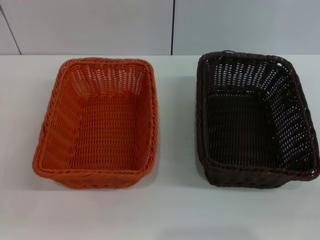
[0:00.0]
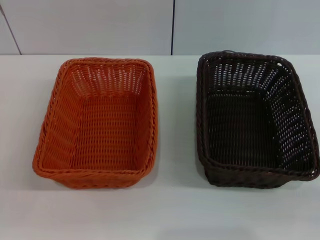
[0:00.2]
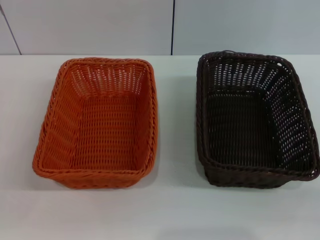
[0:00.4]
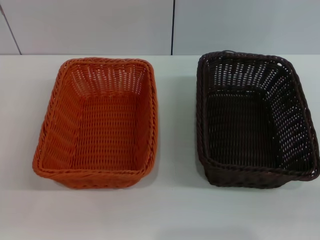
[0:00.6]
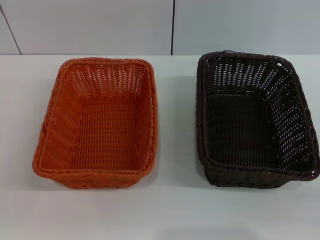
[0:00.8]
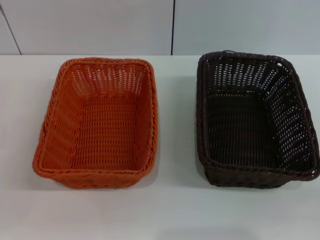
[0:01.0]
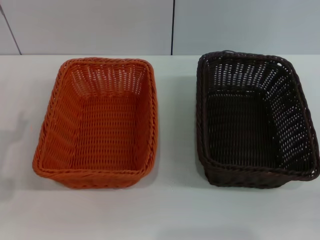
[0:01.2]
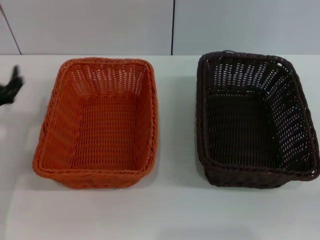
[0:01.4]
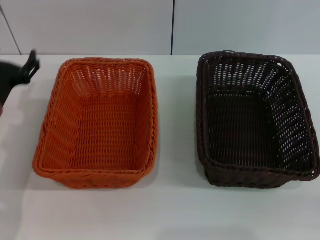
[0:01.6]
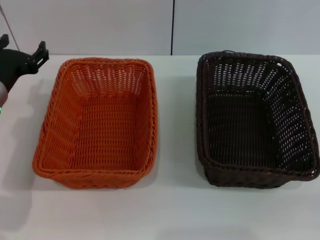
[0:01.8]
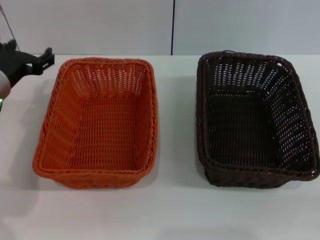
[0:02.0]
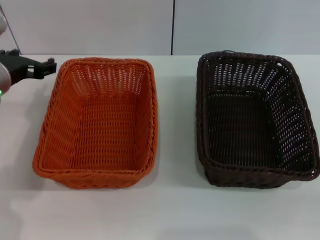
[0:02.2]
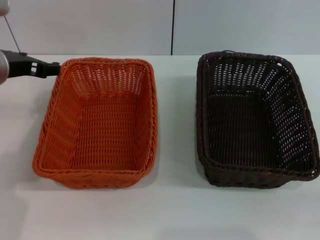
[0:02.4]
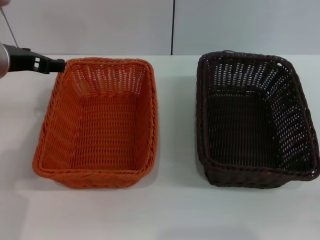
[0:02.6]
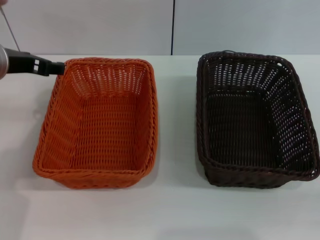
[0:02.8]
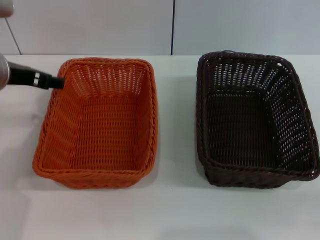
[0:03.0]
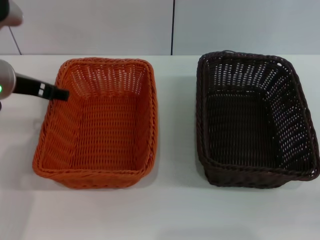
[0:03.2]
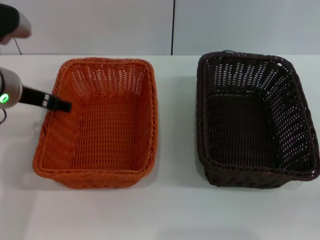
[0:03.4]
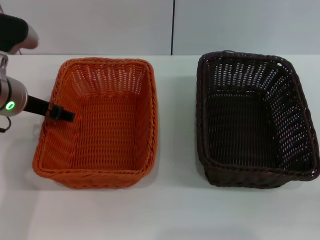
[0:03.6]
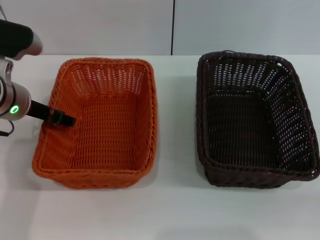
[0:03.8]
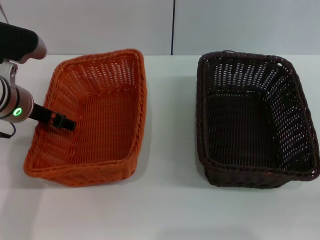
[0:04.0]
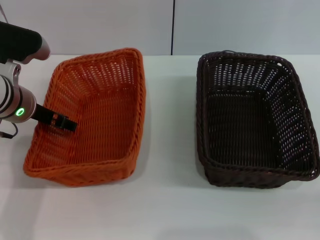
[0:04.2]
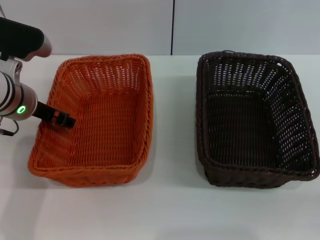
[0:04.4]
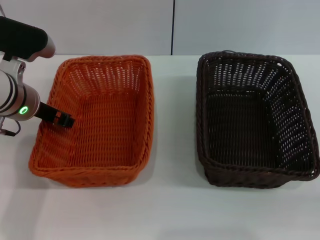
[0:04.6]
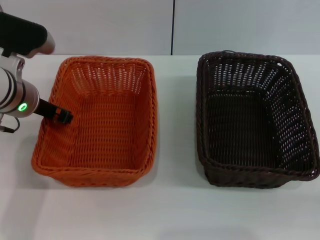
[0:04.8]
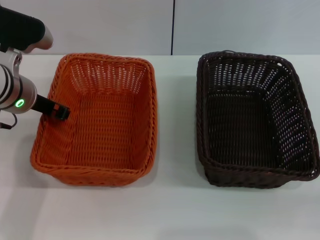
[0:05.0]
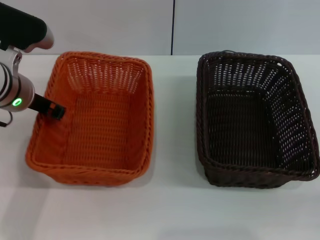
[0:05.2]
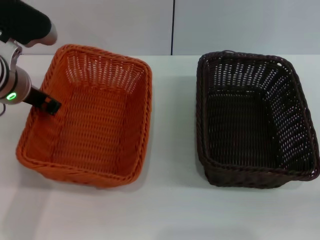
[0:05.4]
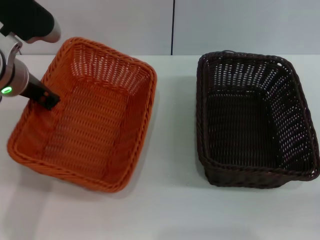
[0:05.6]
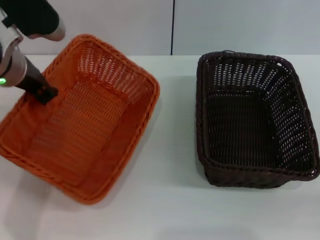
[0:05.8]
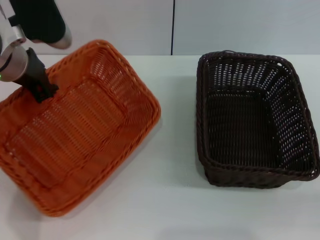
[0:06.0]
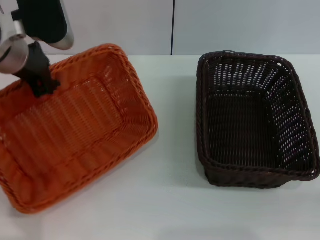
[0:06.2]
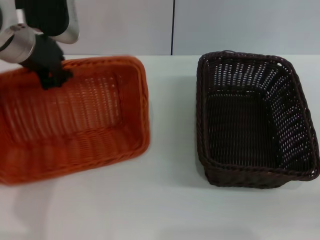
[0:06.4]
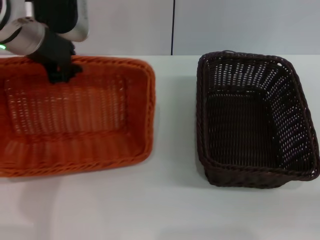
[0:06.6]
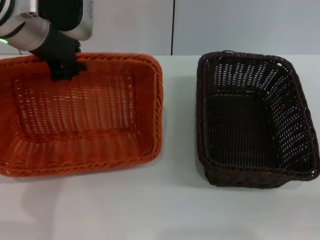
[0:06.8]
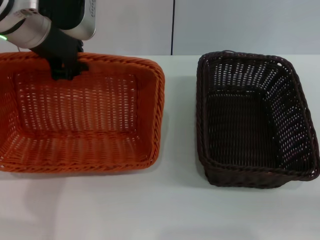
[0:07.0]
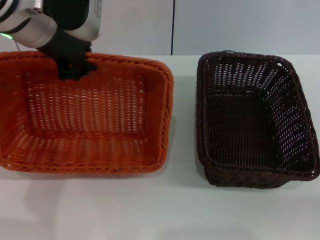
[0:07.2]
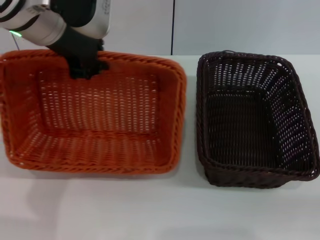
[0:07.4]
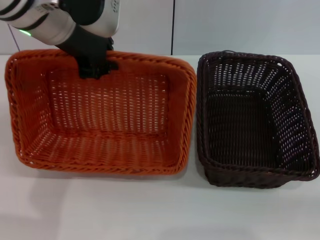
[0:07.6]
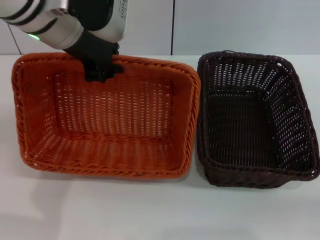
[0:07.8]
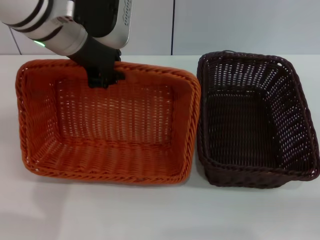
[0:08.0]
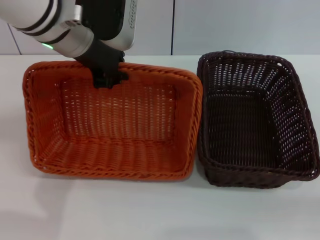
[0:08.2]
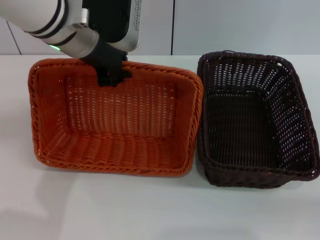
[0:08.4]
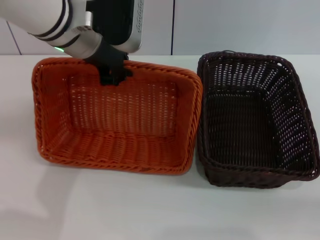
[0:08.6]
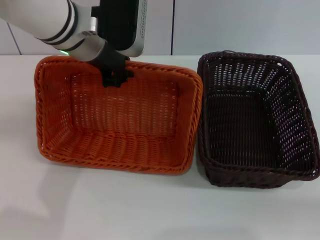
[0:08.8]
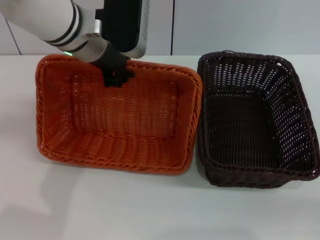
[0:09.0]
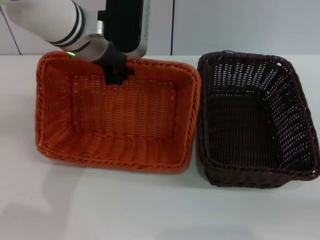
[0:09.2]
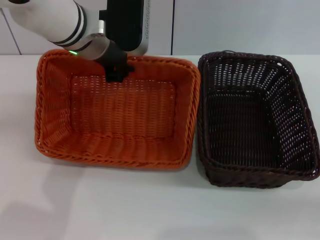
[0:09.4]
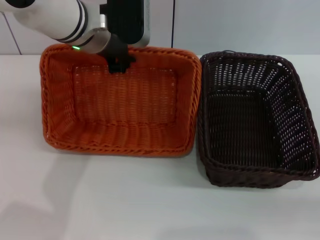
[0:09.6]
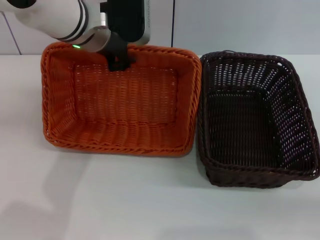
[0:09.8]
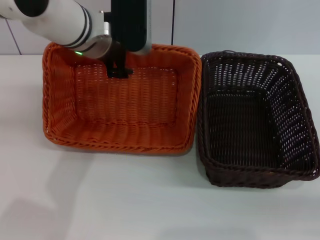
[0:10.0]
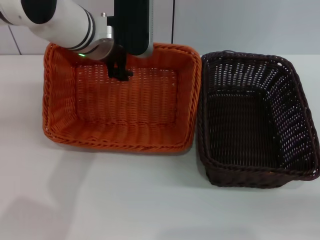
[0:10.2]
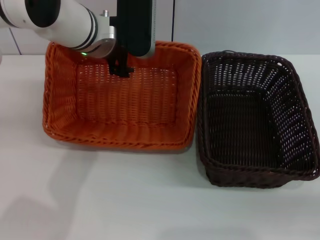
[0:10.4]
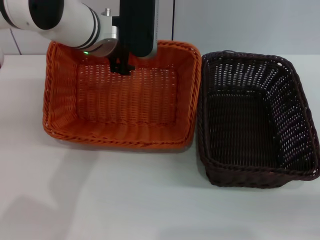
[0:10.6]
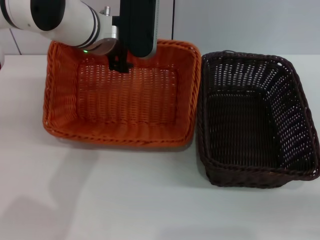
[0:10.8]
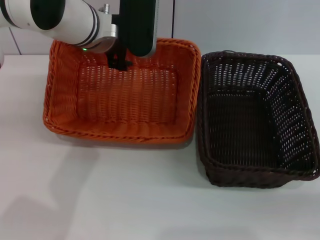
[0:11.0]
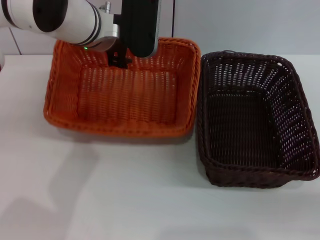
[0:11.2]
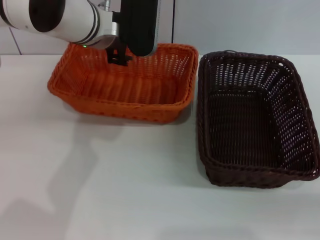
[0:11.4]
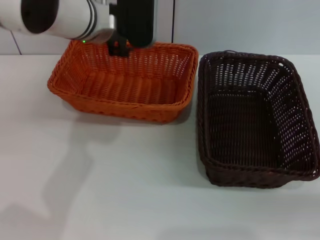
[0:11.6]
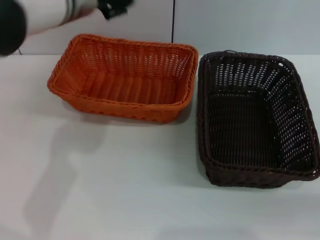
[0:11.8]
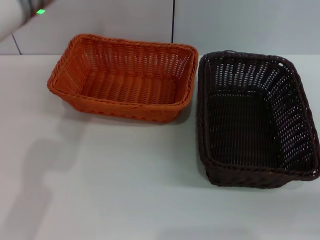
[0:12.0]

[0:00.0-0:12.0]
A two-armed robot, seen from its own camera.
Step, 0:00.0 to 0:05.6: Pick up the light basket with the left gripper.
Step, 0:05.8 to 0:11.2: Place the light basket in the center of view with the left gripper.
0:00.0 to 0:01.6: The left gripper goes approximately 15 cm forward, to the right and upward.
0:01.6 to 0:03.0: The left gripper moves upward, about 10 cm.
0:03.0 to 0:04.4: The left gripper moves downward, roughly 5 cm.
0:04.4 to 0:06.0: The left gripper travels upward by roughly 10 cm, and closes its fingers.
0:06.0 to 0:07.6: The left gripper is displaced upward and to the right by some 10 cm.
0:07.6 to 0:09.0: The left gripper shifts roughly 5 cm downward.
0:09.0 to 0:10.4: The left gripper opens up.
0:10.4 to 0:12.0: The left gripper shifts roughly 5 cm to the left.

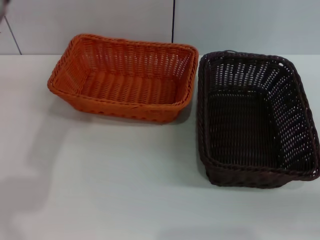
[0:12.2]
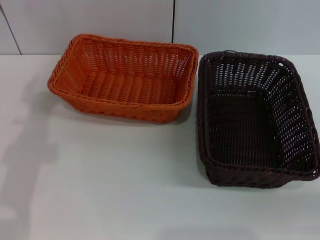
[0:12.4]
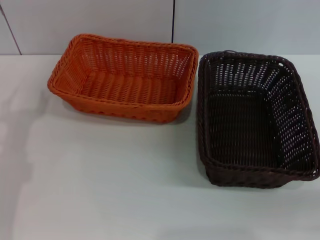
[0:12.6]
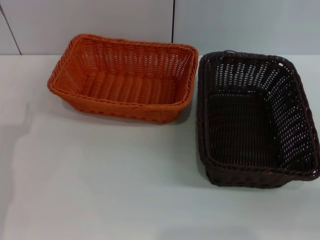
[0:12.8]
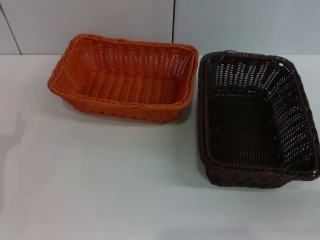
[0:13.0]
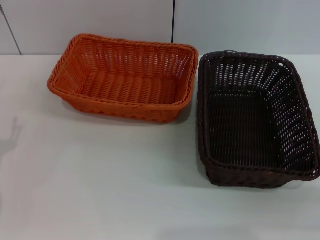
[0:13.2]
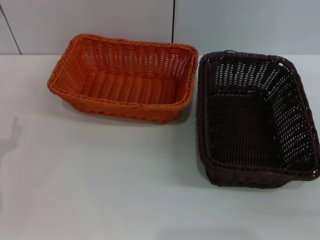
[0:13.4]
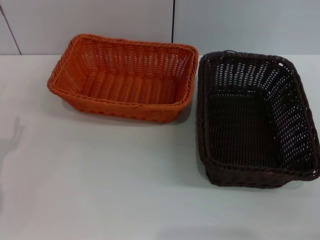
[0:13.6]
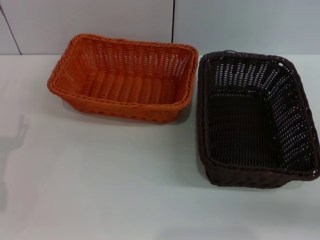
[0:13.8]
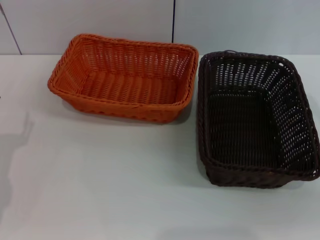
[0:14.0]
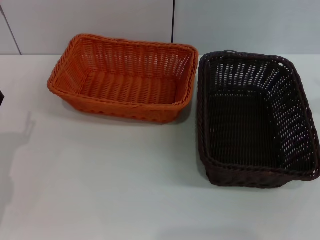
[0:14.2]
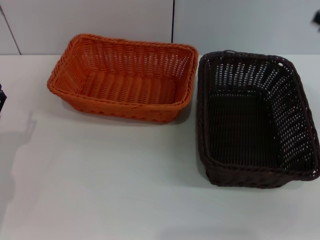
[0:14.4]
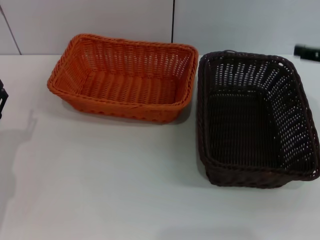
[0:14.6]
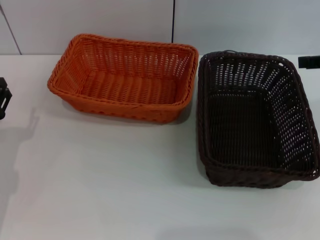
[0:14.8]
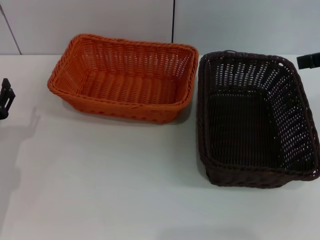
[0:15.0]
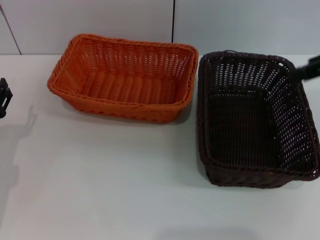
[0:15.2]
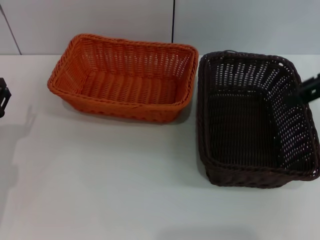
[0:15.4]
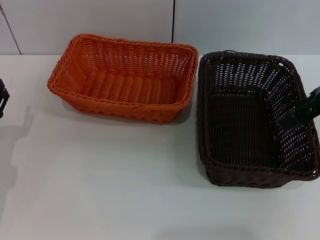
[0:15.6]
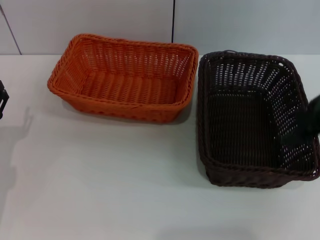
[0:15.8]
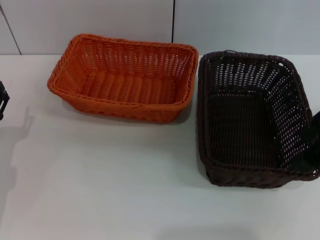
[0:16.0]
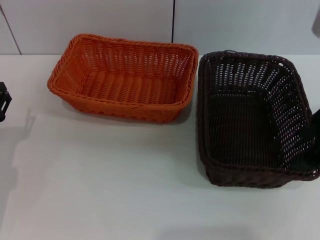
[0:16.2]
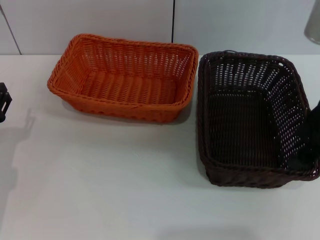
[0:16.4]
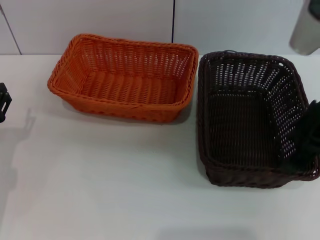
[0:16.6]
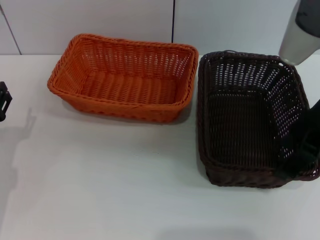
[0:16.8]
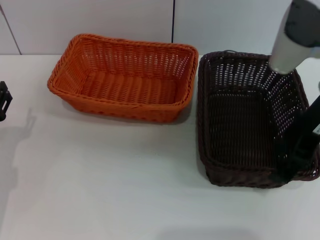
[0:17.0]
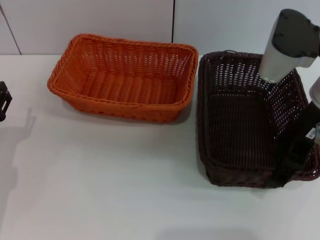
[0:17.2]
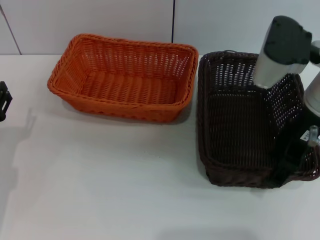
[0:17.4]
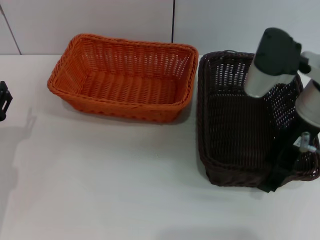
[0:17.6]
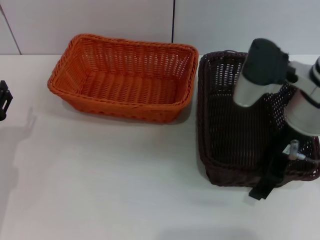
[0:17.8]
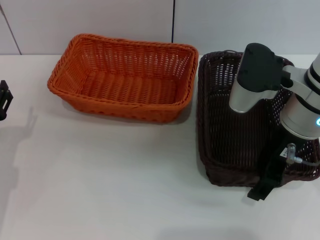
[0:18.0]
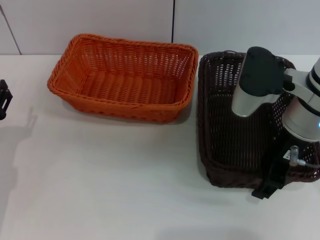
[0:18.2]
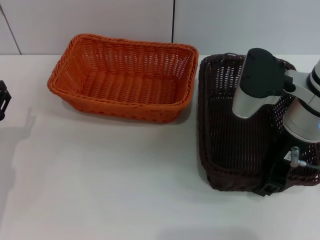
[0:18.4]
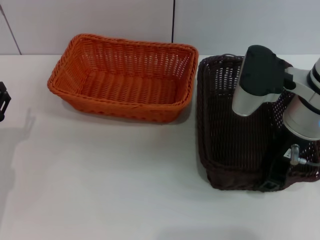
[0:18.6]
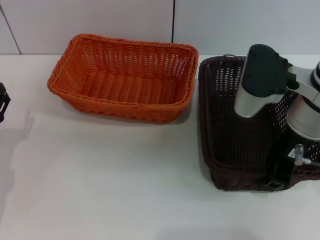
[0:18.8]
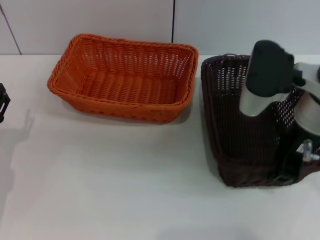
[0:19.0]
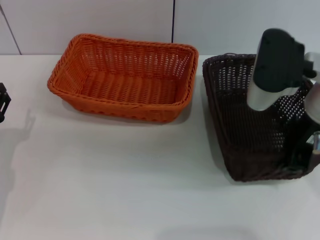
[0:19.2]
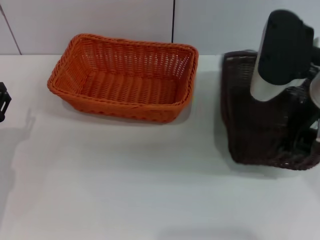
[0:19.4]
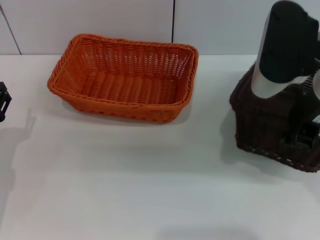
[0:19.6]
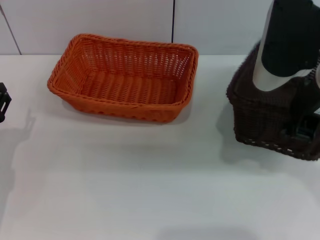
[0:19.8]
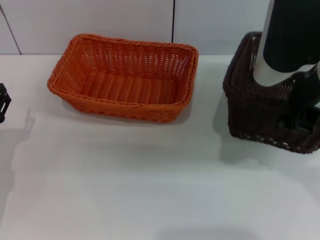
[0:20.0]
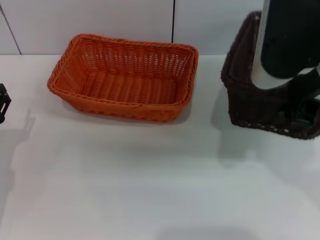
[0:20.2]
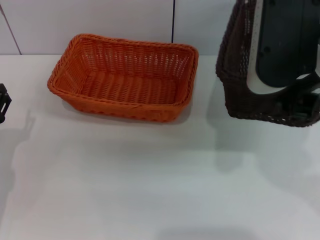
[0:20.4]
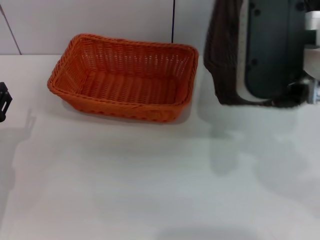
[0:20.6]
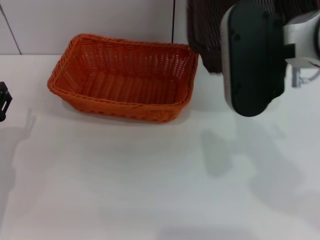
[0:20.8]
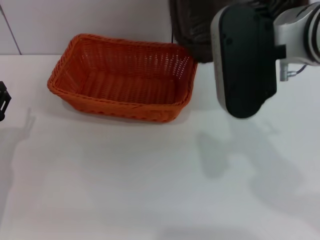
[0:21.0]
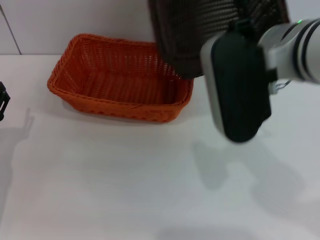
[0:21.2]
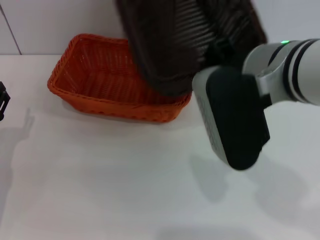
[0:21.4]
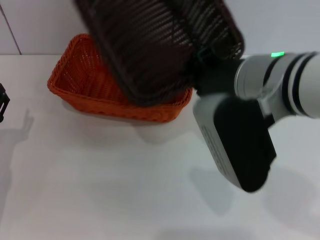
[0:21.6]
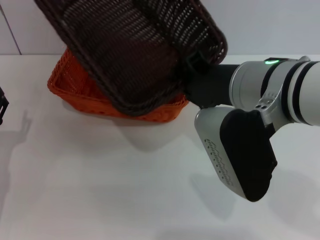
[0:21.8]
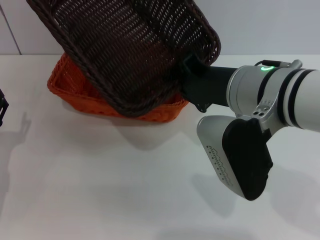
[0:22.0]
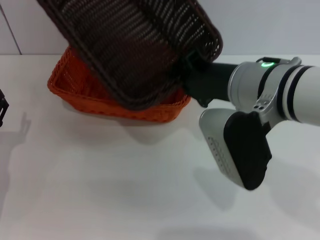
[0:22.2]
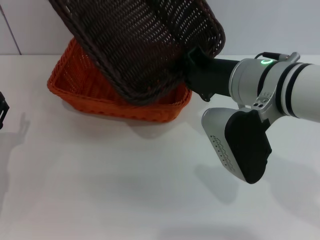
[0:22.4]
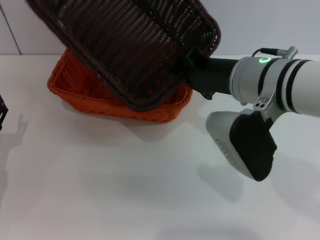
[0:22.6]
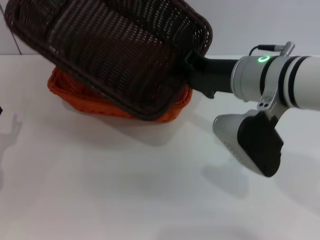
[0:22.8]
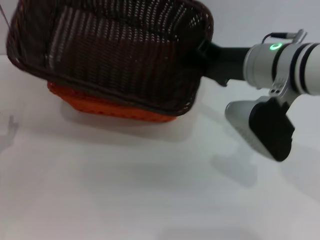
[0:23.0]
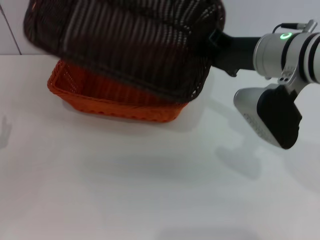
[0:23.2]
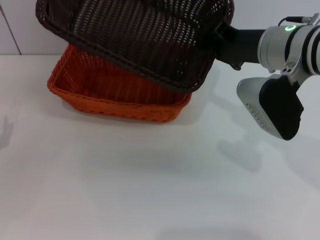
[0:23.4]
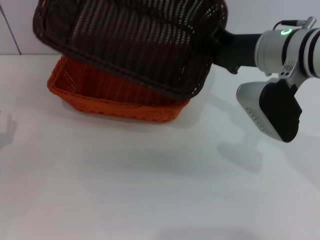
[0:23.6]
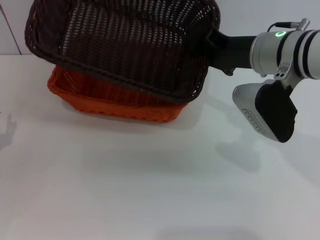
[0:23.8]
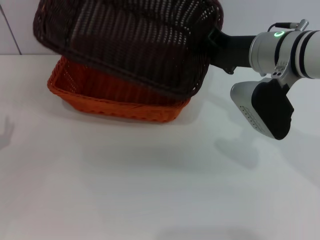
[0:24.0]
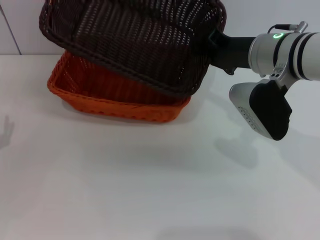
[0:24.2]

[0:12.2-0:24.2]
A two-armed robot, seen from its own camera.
Step, 0:12.2 to 0:19.8: Pick up the dark basket with the right gripper.
0:13.8 to 0:15.2: The right gripper shifts about 20 cm upward.
0:15.2 to 0:16.6: The right gripper is displaced to the left by roughly 10 cm.
0:16.6 to 0:18.2: The right gripper moves downward, about 5 cm.
0:18.2 to 0:19.8: The right gripper goes some 10 cm upward, and closes.
0:19.8 to 0:21.2: The right gripper goes some 5 cm to the left.
0:21.2 to 0:22.6: The right gripper heads downward, covering approximately 5 cm.
0:22.6 to 0:24.2: The right gripper travels forward by approximately 5 cm.
